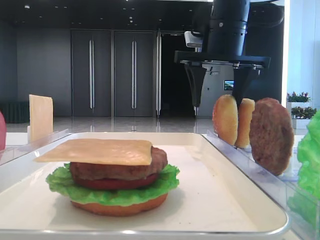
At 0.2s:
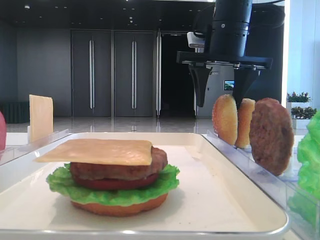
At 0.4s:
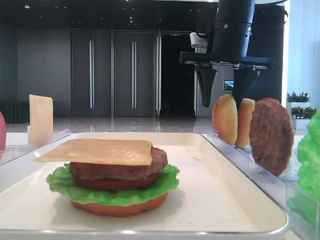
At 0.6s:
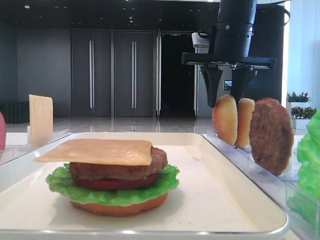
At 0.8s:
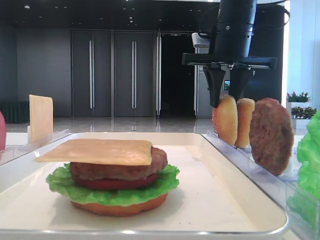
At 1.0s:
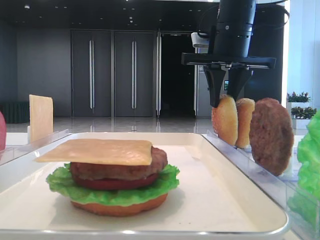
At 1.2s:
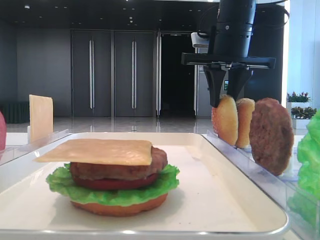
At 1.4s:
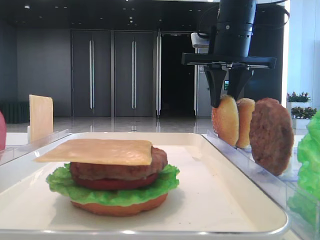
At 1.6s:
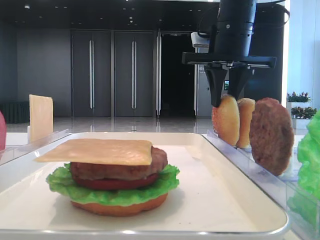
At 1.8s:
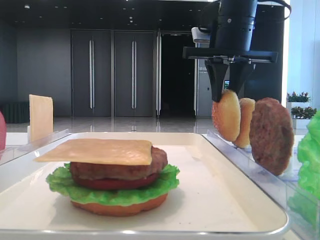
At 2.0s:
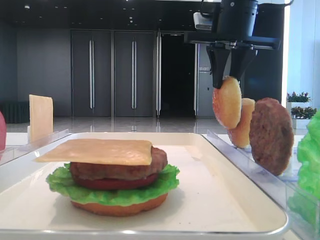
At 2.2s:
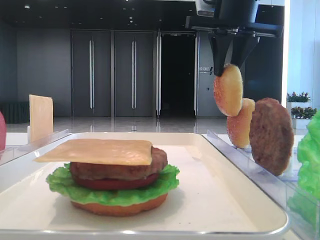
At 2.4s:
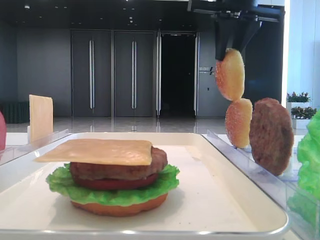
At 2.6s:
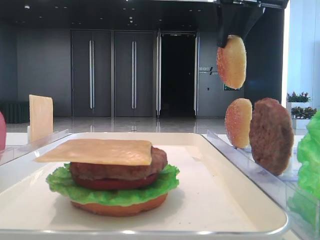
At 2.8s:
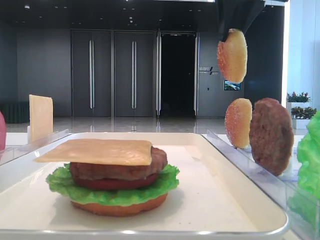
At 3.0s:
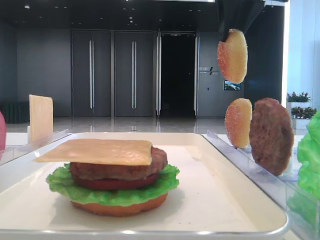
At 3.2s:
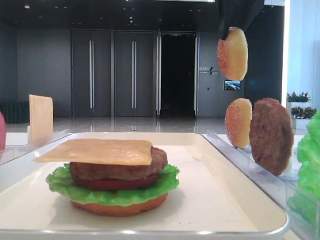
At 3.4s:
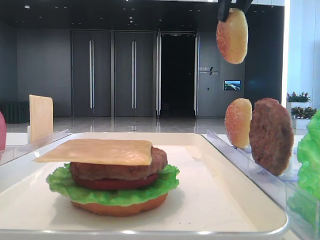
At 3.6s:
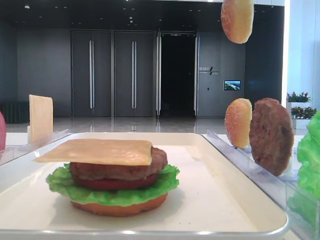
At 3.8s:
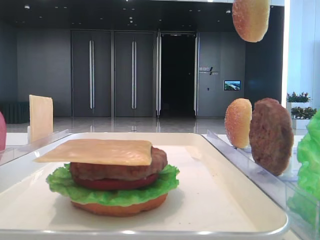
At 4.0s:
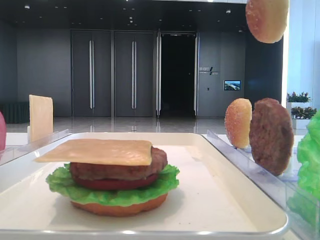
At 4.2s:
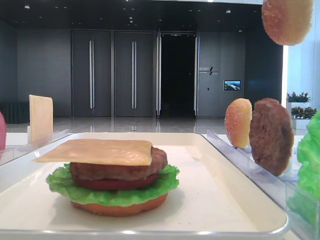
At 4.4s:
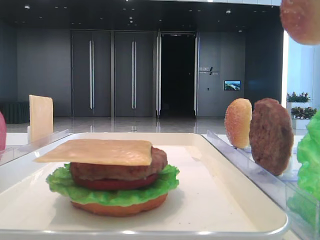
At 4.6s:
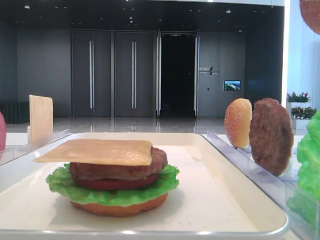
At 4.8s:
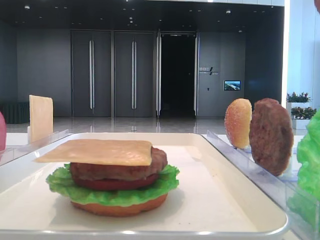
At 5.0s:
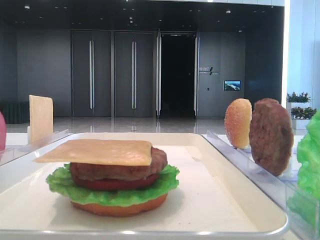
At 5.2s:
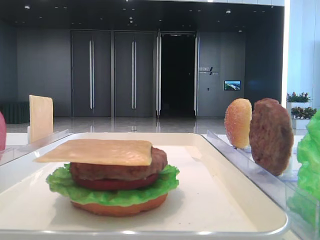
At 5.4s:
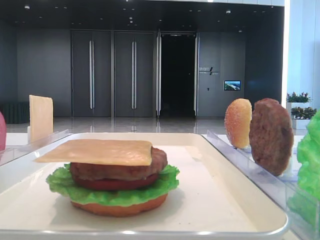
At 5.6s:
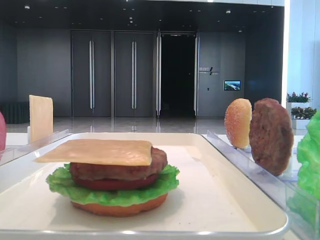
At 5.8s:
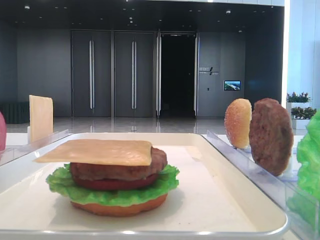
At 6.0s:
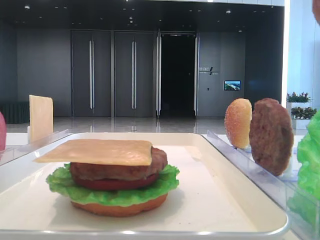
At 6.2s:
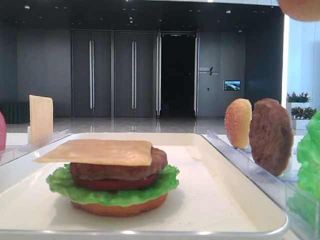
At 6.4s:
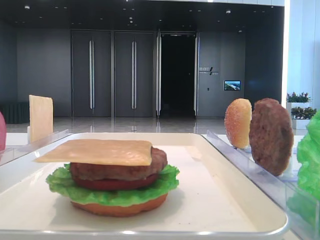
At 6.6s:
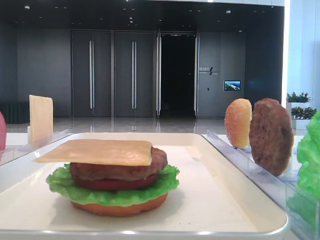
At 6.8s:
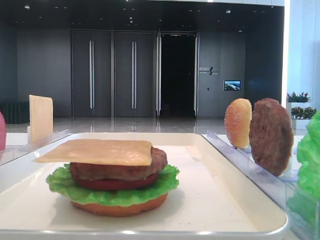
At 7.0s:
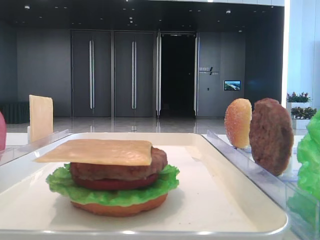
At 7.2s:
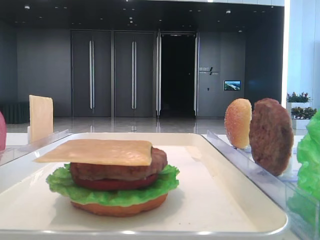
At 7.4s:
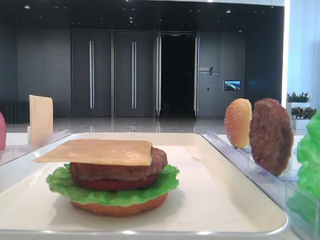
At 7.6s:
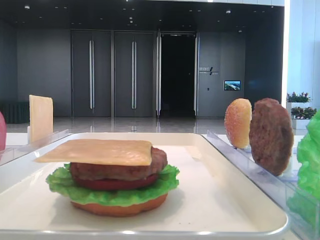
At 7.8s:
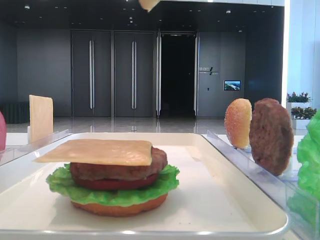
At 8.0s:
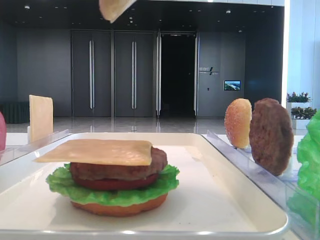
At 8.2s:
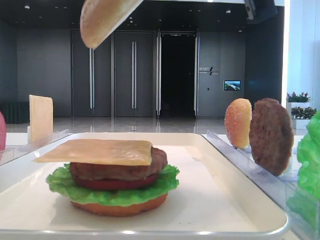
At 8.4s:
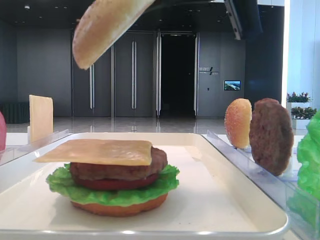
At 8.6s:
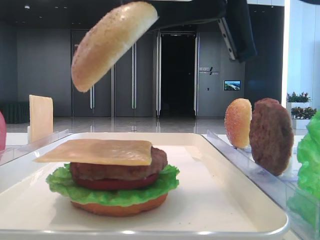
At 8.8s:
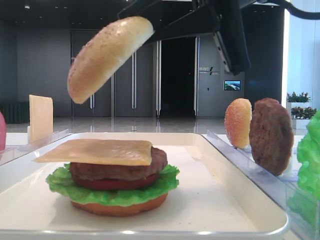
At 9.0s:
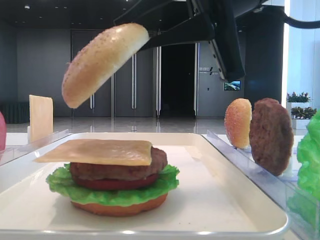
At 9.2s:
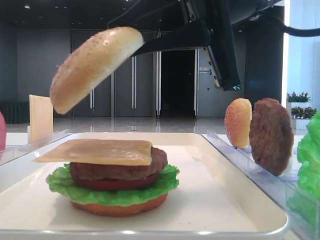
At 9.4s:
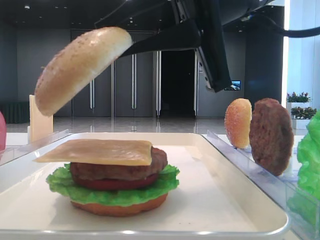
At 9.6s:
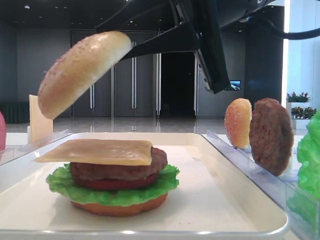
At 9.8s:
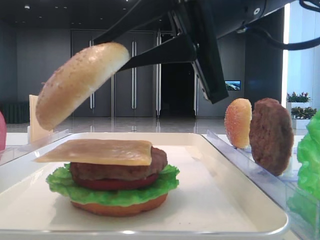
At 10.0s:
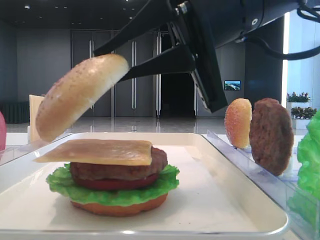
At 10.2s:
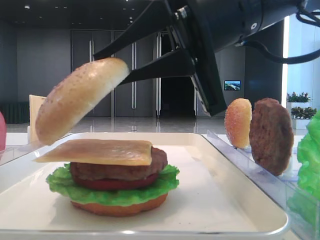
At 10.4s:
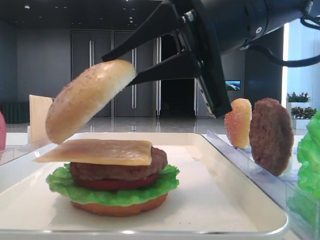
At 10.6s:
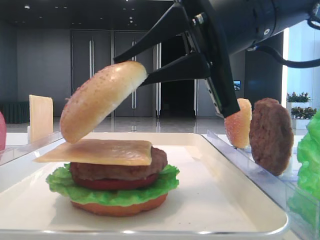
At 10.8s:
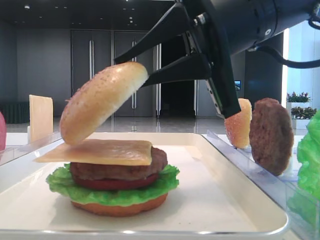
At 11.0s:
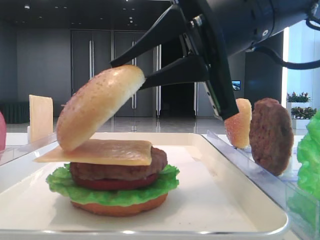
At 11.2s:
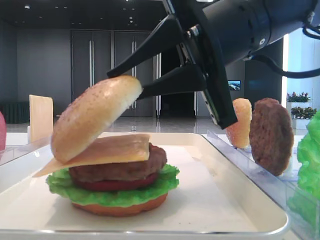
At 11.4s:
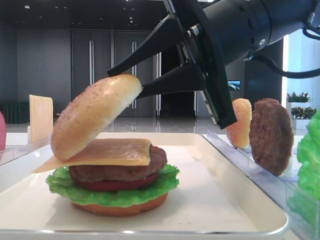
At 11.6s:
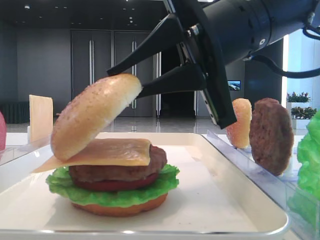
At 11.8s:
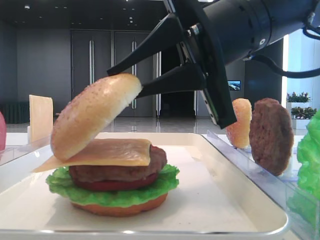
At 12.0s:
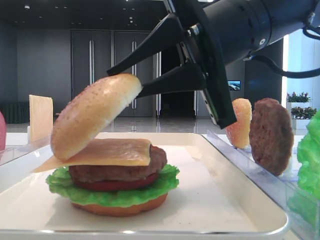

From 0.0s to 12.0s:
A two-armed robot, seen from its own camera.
From 0.0s to 1.6s: The right gripper closes.
From 1.6s to 3.0s: The right gripper goes approximately 10 cm upward.
From 3.0s to 4.4s: The right gripper travels backward by approximately 15 cm.
From 4.4s to 6.0s: The right gripper travels backward by roughly 10 cm.
From 6.0s to 7.6s: The right gripper ends up approximately 5 cm from where it was.
From 7.6s to 9.0s: The right gripper travels downward and to the left by about 15 cm.
From 9.0s to 10.4s: There are only small adjustments of the grippers.
From 10.4s to 12.0s: Both grippers stay put.

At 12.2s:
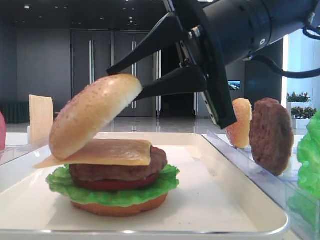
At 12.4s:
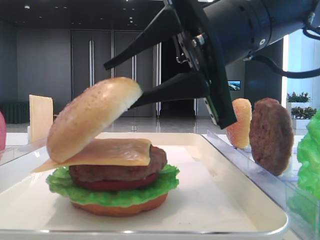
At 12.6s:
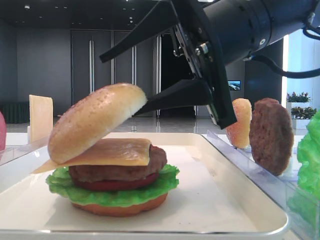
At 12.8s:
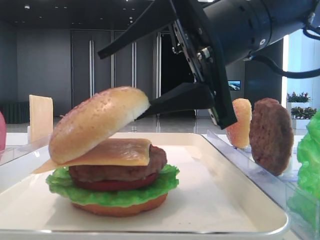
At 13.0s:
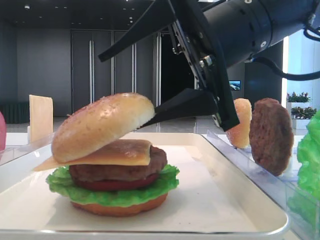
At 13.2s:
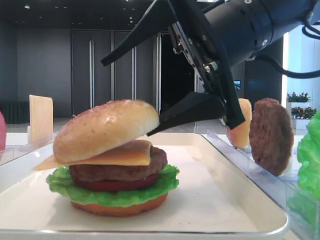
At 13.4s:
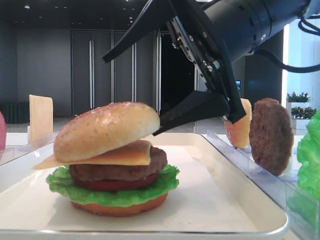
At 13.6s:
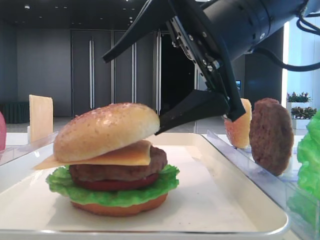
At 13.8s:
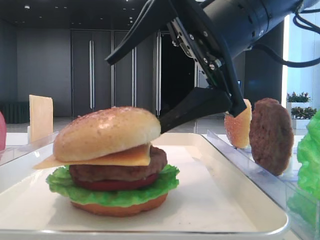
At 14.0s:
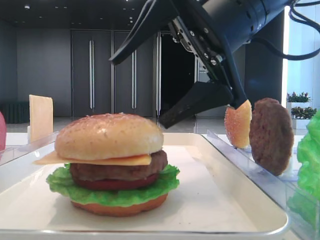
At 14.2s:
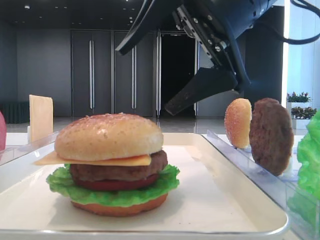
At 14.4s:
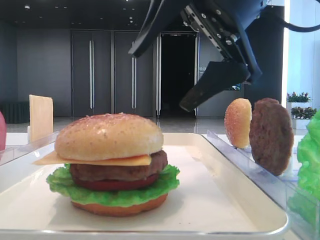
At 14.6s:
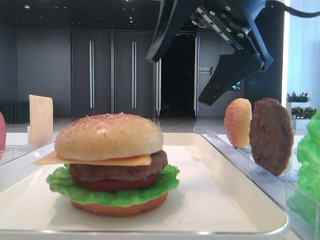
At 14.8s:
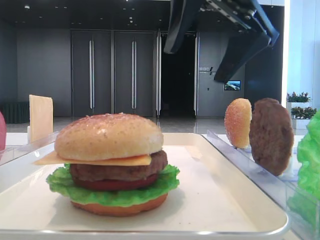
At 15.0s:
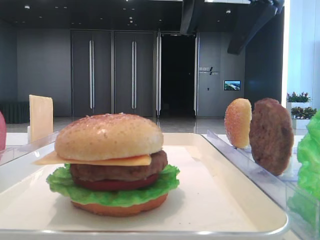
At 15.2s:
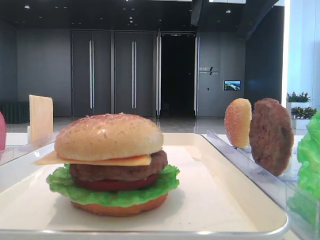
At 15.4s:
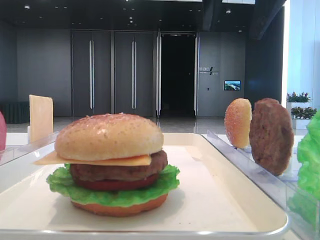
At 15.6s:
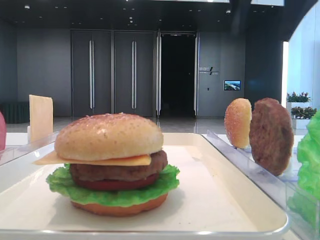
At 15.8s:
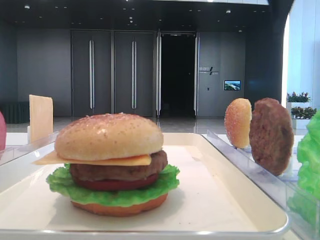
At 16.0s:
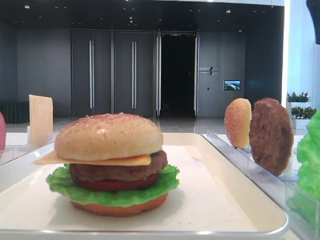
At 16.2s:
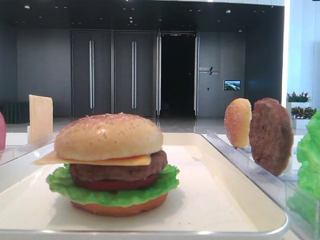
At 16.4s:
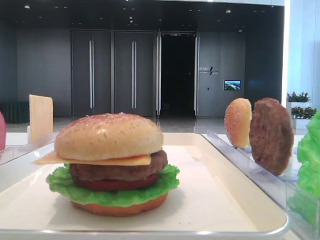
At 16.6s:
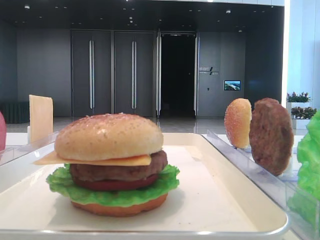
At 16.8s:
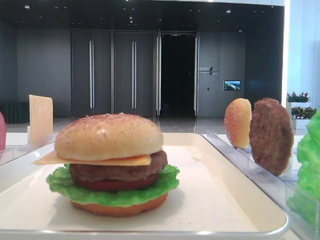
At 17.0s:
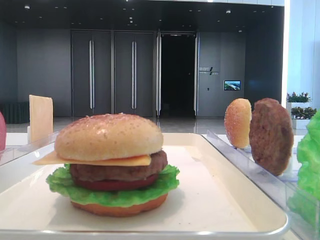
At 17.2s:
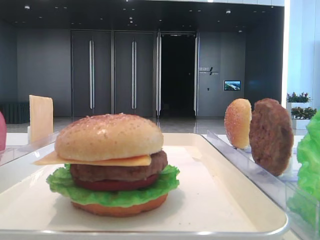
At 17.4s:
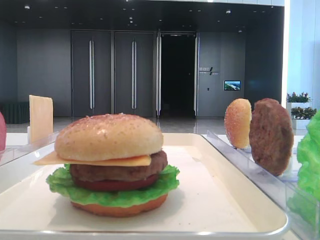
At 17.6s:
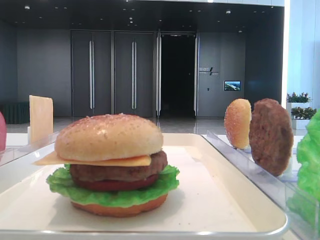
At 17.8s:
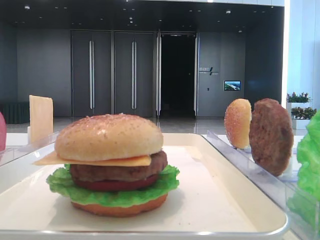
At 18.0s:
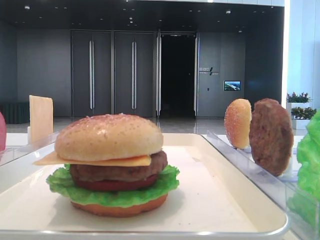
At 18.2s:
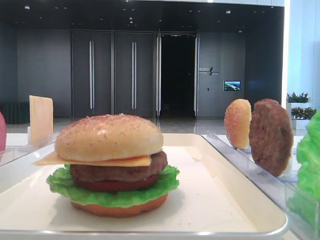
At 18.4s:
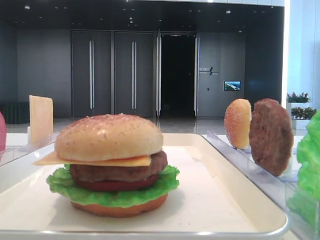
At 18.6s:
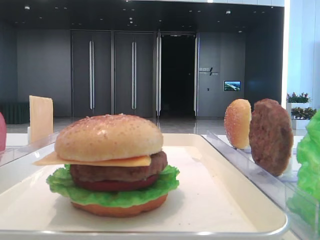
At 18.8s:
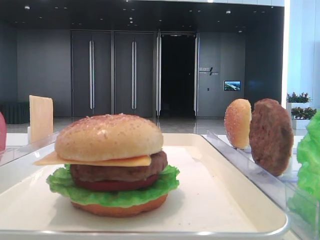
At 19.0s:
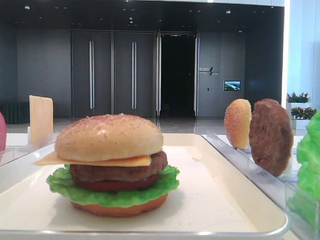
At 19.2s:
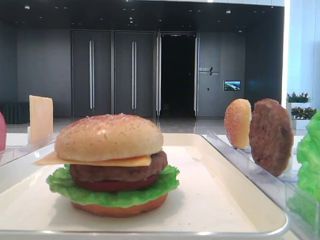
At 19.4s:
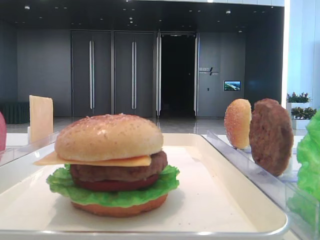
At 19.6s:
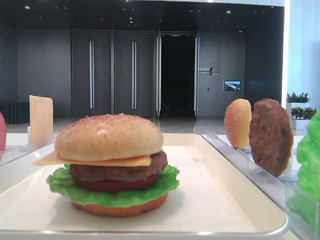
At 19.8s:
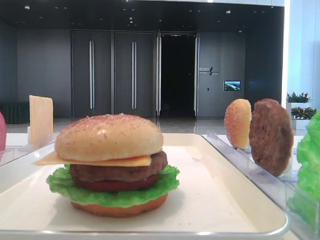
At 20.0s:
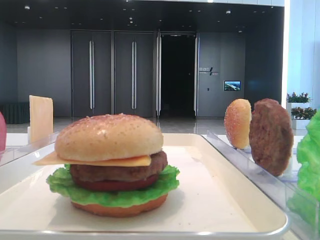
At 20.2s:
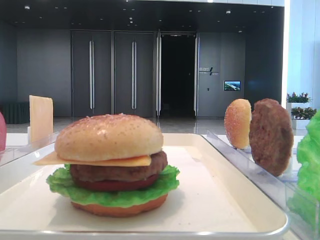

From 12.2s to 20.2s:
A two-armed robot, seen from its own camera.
From 12.2s to 13.8s: The right gripper opens.
From 13.8s to 15.4s: The right gripper moves upward and forward, about 15 cm.
From 17.0s to 18.6s: The right gripper is displaced backward and downward by roughly 30 cm.

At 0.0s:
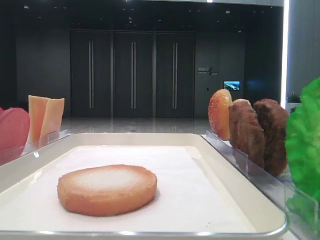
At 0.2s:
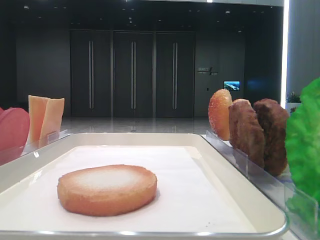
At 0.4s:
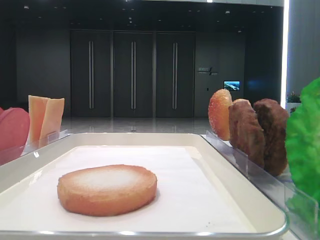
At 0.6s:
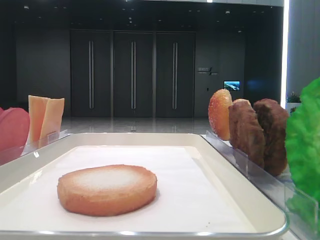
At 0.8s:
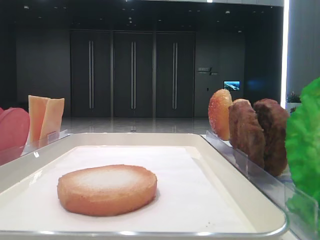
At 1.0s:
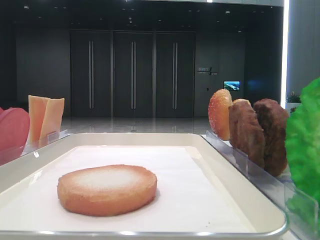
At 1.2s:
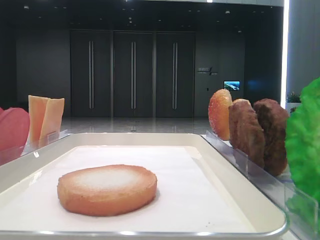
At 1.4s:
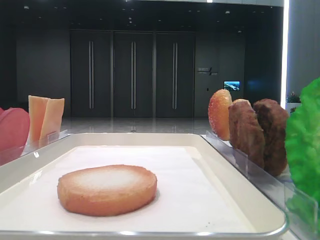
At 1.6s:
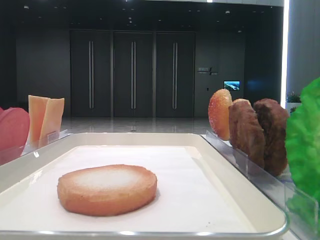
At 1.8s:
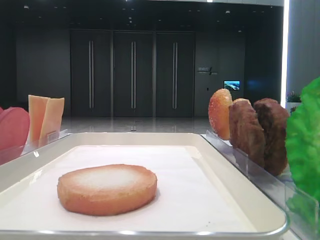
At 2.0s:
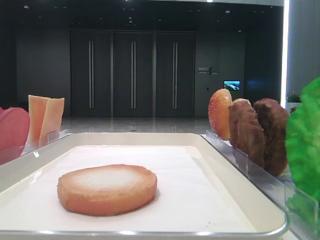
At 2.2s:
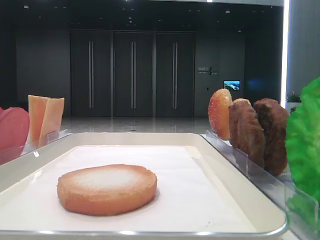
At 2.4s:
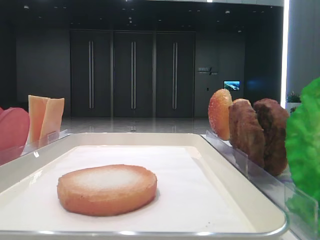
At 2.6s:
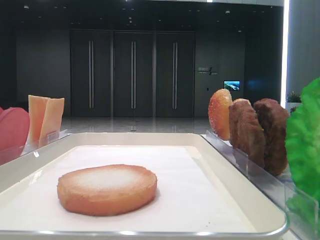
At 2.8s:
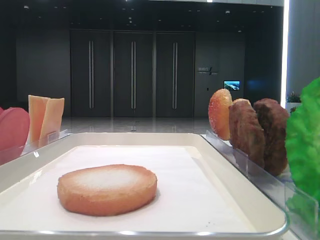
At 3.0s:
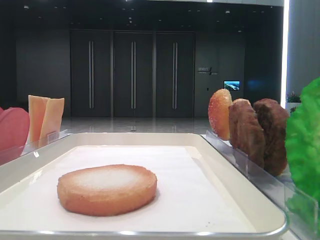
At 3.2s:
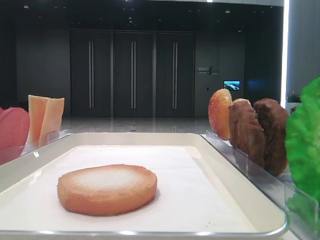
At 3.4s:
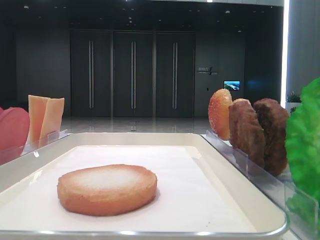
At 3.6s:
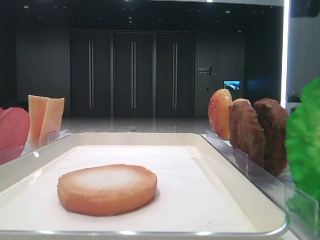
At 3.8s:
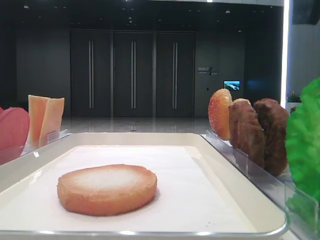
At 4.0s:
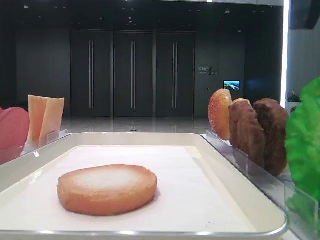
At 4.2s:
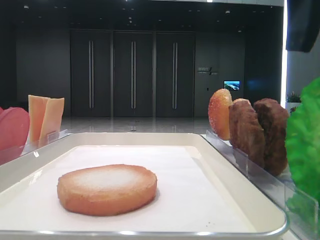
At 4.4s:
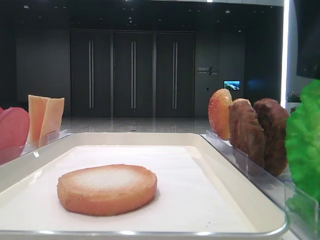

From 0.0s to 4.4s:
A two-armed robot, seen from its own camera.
From 3.0s to 4.4s: The right gripper moves downward and forward, roughly 10 cm.
